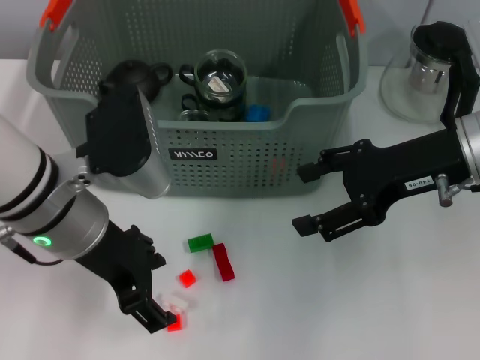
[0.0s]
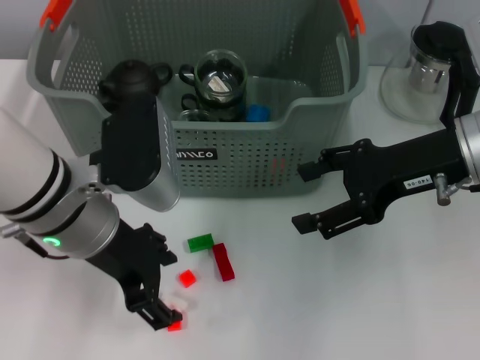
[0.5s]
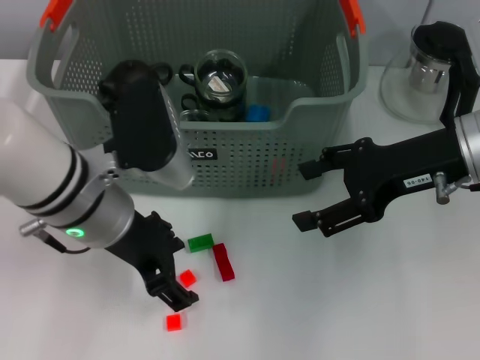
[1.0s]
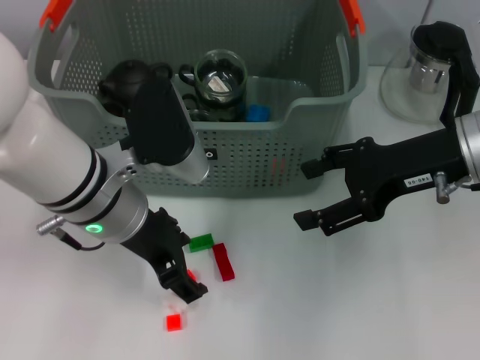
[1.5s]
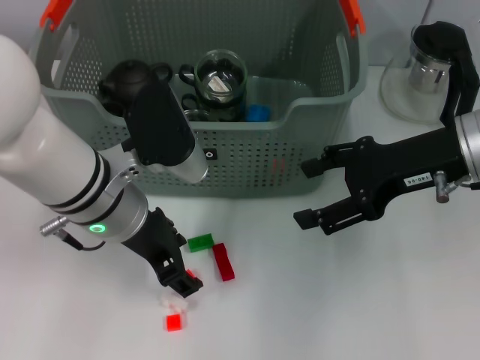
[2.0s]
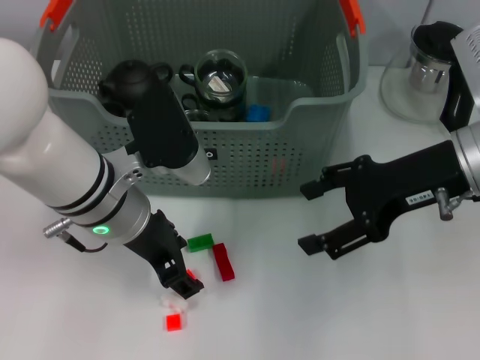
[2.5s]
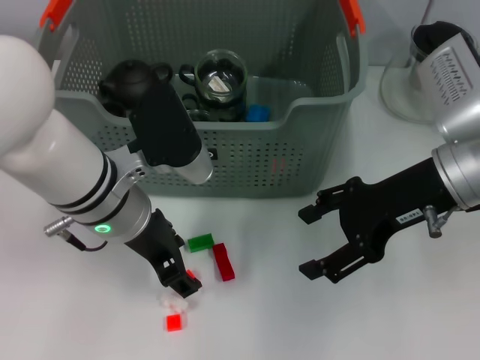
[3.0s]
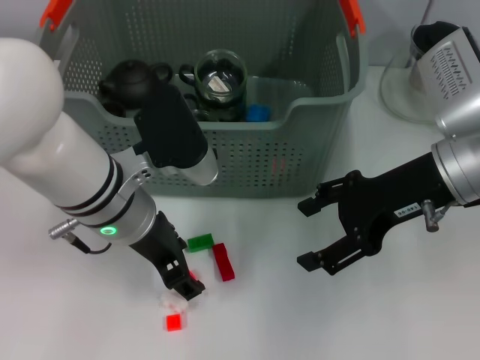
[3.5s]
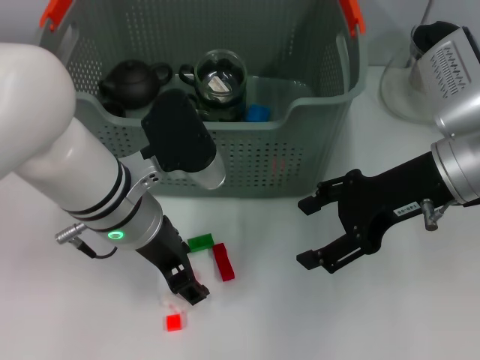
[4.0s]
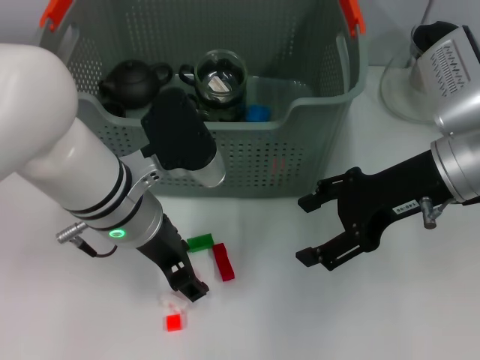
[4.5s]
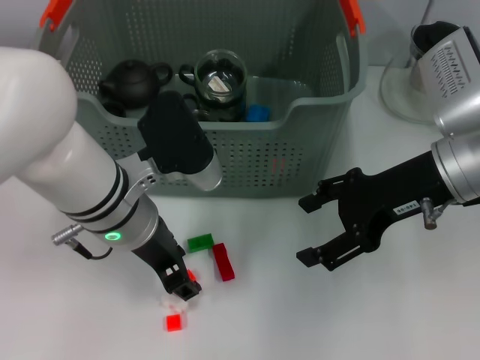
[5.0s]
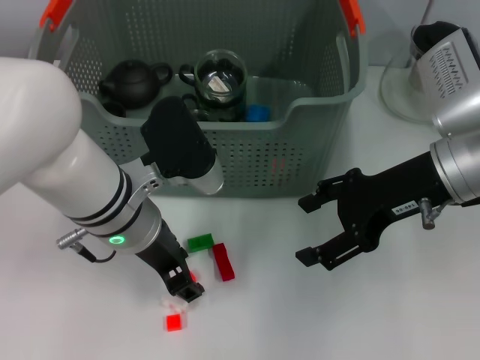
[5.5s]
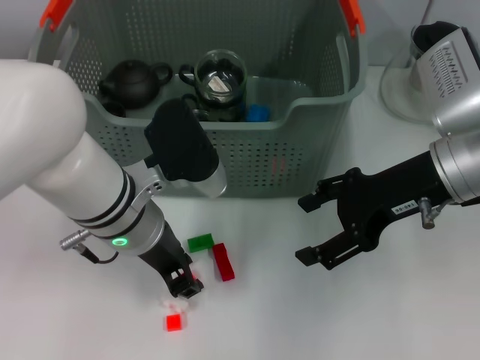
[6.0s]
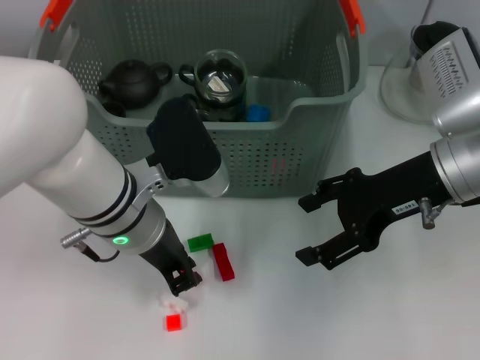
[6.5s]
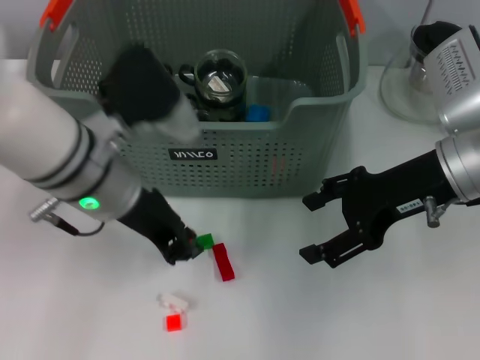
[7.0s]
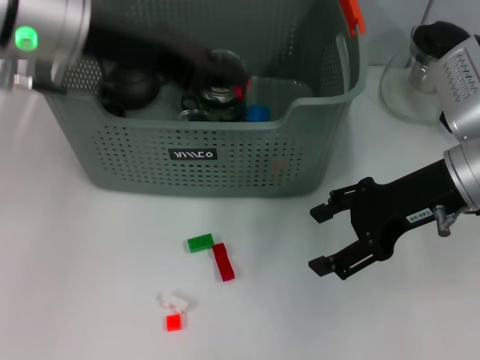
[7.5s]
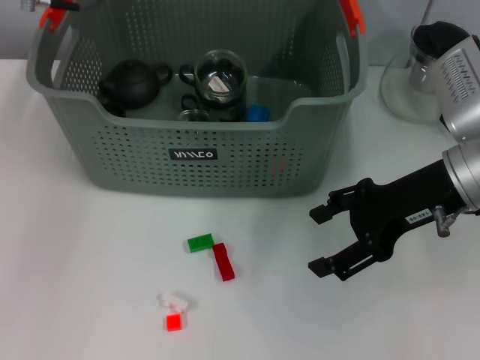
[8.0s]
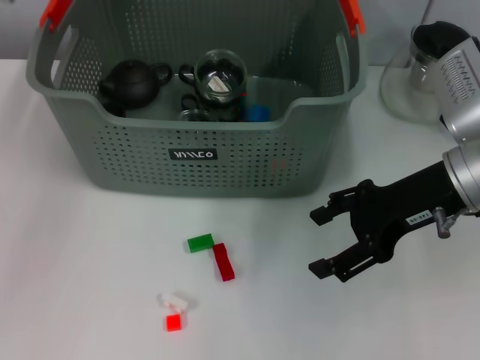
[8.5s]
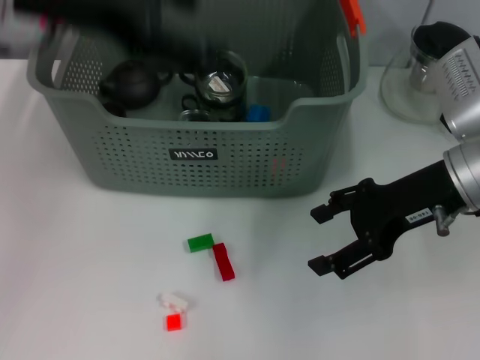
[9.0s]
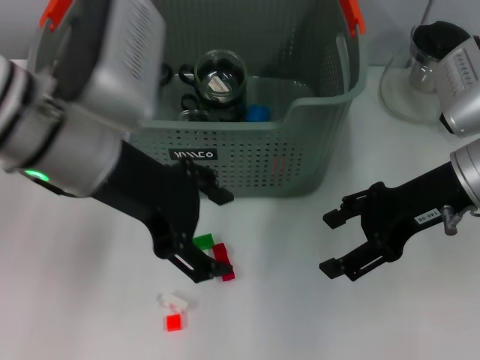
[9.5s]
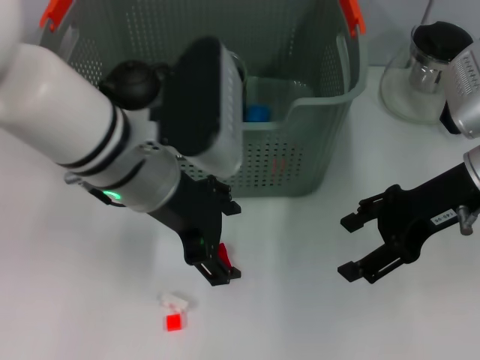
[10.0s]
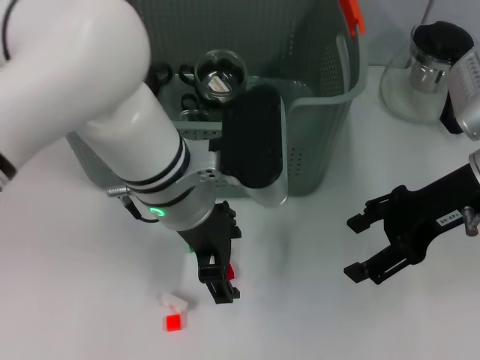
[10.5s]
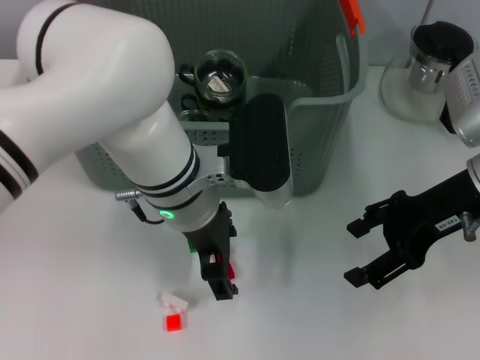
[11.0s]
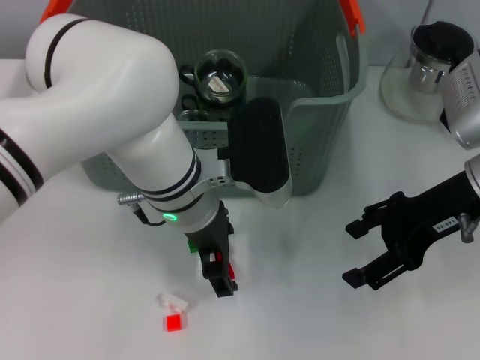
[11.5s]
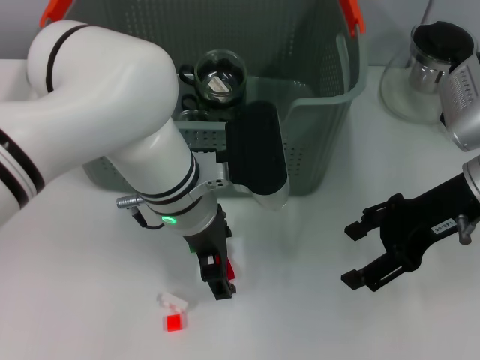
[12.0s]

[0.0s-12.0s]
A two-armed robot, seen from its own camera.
Task of the whole recording: pick up the teacup on the table and place it into the storage bin, pick up the block on the table and place it into the storage bin.
Step, 0.0s to 6.5s: Grasp the orange block with left gripper.
Step, 7.0s to 8.5s: Place the orange block in the storage box with left gripper.
0.0s to 4.0s: The grippers stay close to where they were, moving slightly.
4.0s to 6.0s: Both grippers stay put.
6.0s to 8.0s: The left gripper goes roughly 20 cm upward, forward and to the left, and closes its fingers.
8.0s to 10.0s: The left gripper moves backward, downward and to the right, about 15 cm, and opens.
10.0s to 12.0s: The left gripper heads downward, covering some 5 cm.

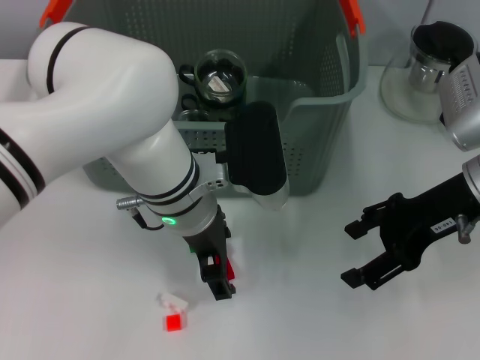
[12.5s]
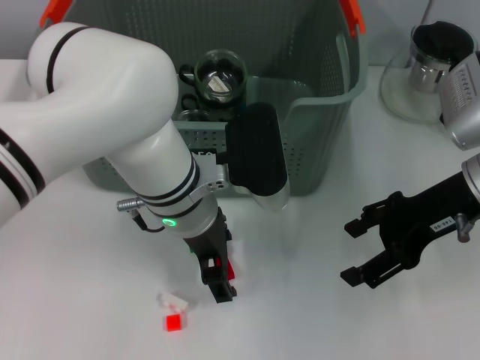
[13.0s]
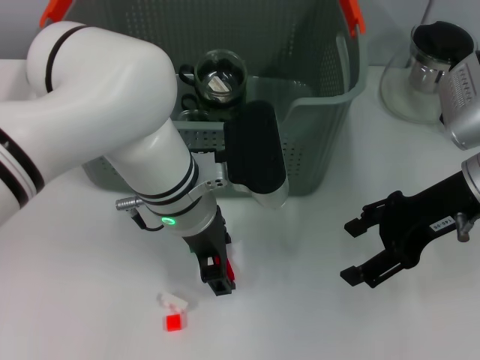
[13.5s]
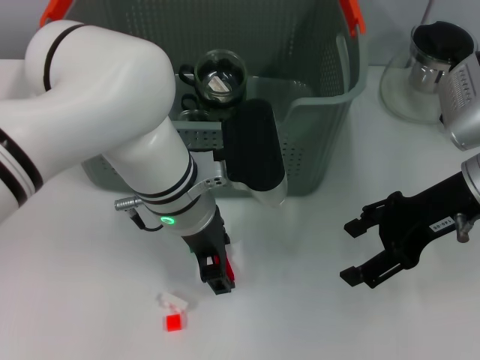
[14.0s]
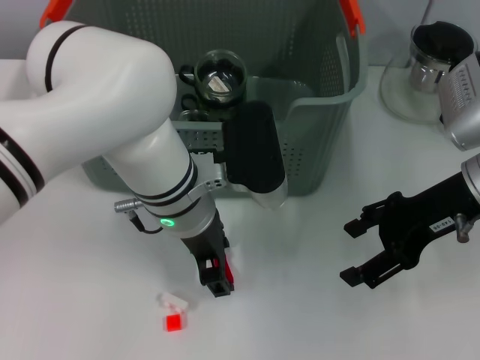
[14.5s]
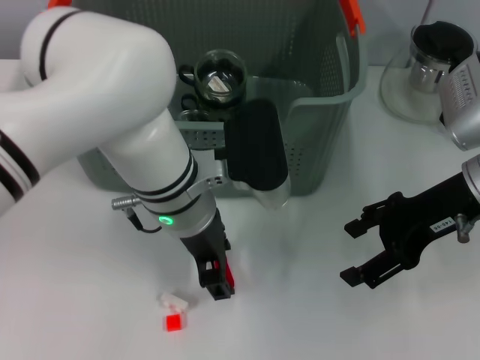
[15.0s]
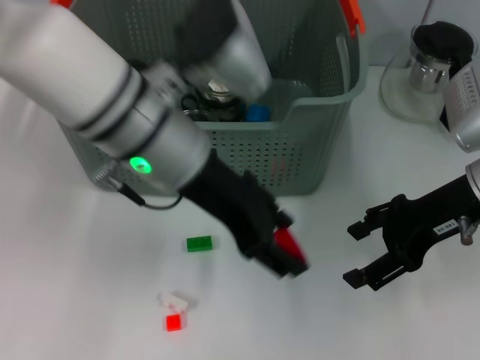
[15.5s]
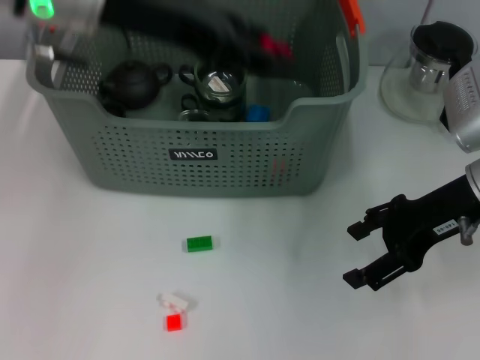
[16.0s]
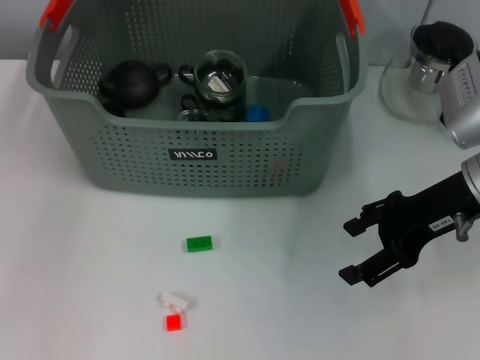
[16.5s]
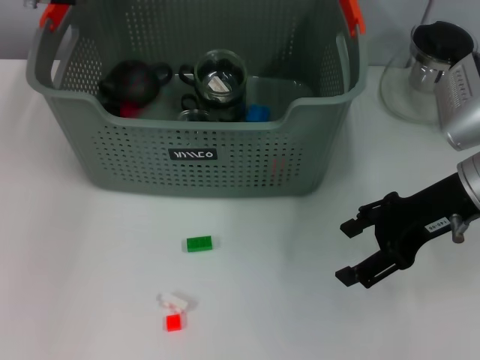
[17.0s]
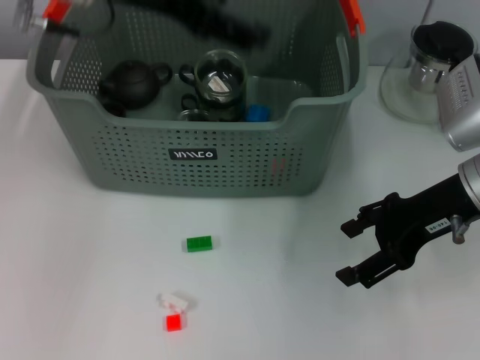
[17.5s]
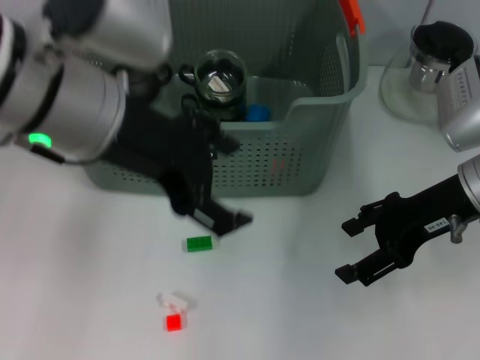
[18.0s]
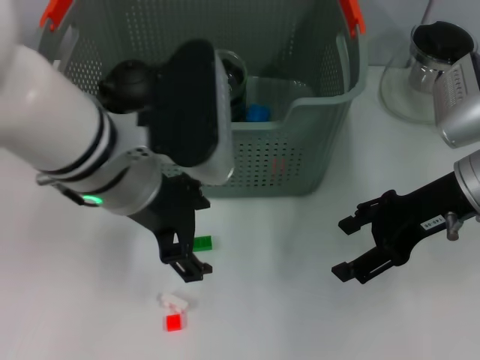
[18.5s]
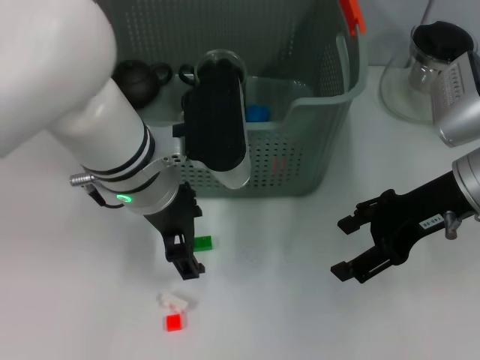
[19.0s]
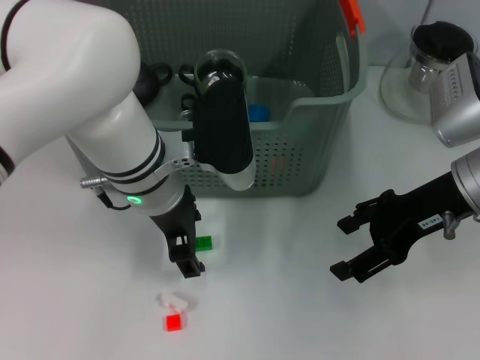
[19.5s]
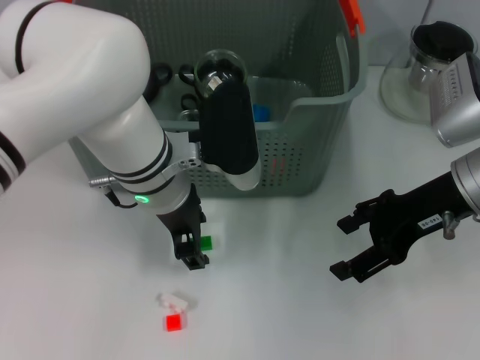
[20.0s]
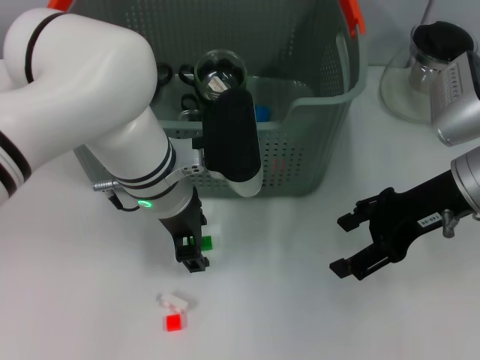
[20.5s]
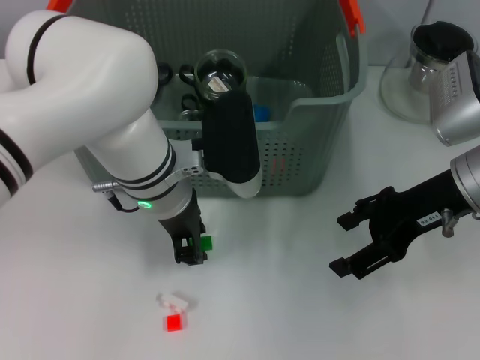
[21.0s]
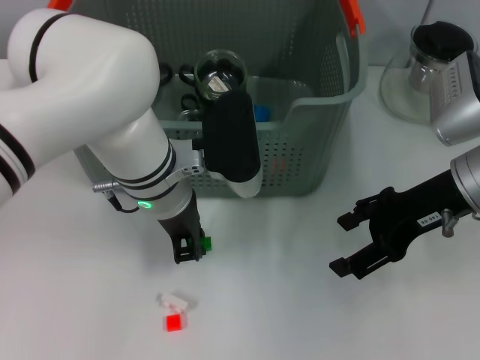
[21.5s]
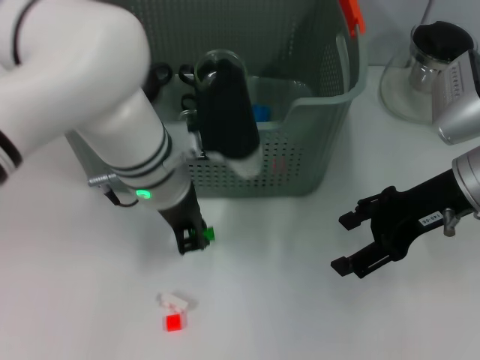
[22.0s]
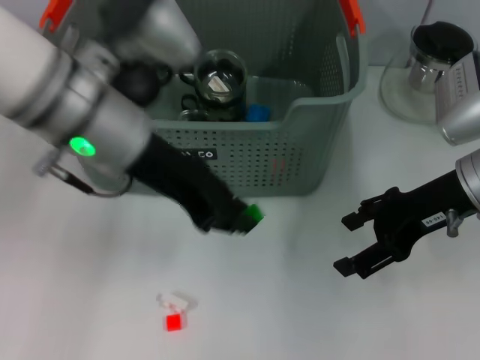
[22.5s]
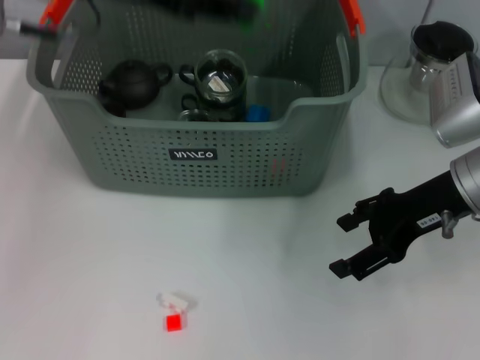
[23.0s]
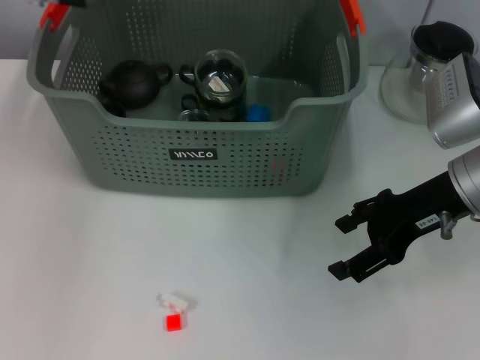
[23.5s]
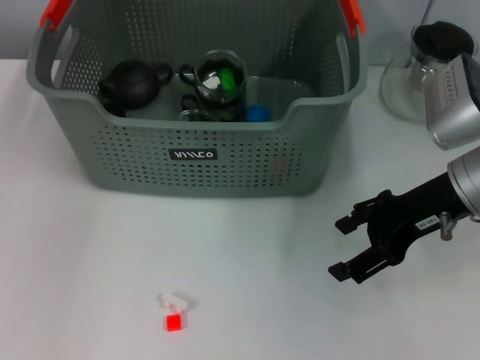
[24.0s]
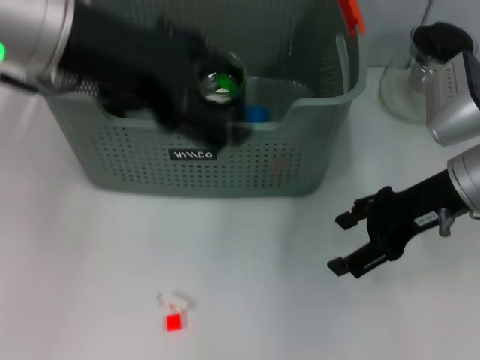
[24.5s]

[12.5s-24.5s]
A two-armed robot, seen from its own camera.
Task of the whole recording: pick up the teacup on the table and place it into the storage bin, pick up the block on the table and place it into the storage bin.
Step, 12.5s to 14.5s: Grasp the red block with left gripper.
Step, 15.0s to 17.0s: Place the red block in the storage box with left gripper.
Step, 17.5s to 21.5s: Grasp the green block with left gripper.
Step, 22.0s to 23.5s: Place the green block in the storage box with left gripper.
12.5s to 14.5s: Both grippers stay about where they are.
14.5s to 16.5s: The left gripper moves upward, to the left and forward, some 25 cm.
16.5s to 18.5s: The left gripper heads backward, to the right and downward, covering roughly 20 cm.
18.5s to 20.5s: The left gripper moves downward, some 5 cm.
20.5s to 22.5s: The left gripper heads upward, covering about 10 cm, and closes its fingers.
22.5s to 24.5s: The left gripper moves upward, roughly 5 cm, reaches roughly 10 cm forward, then returns, and opens its fingers.

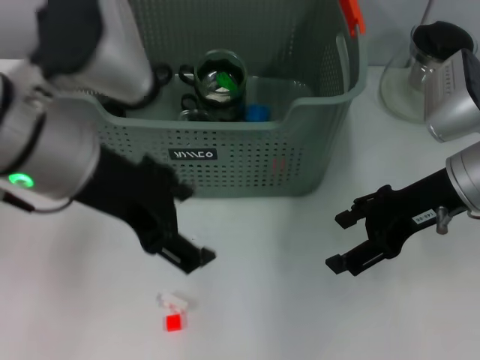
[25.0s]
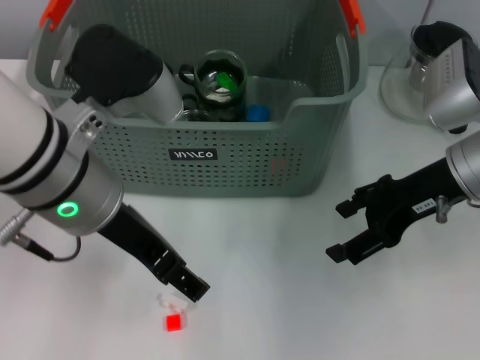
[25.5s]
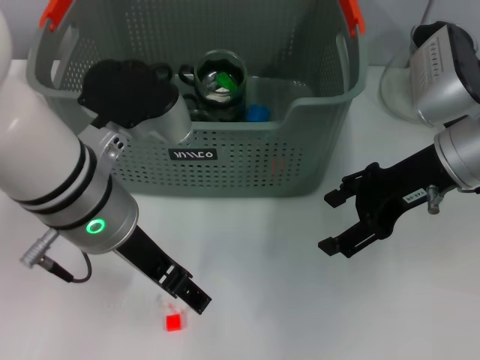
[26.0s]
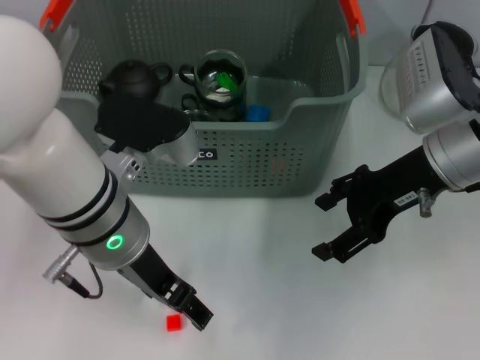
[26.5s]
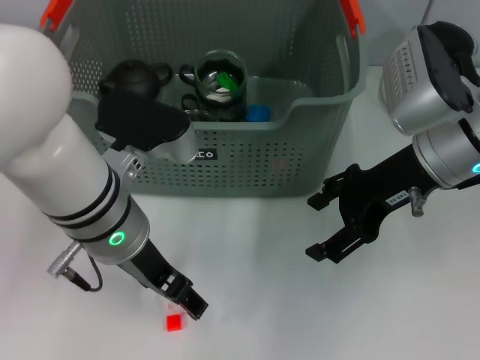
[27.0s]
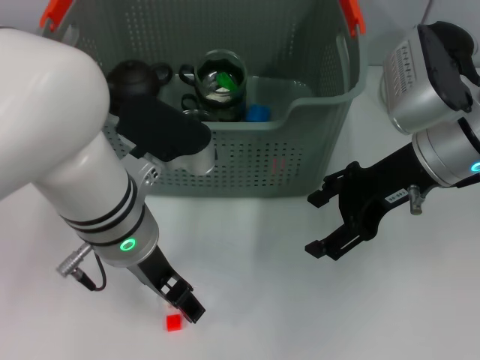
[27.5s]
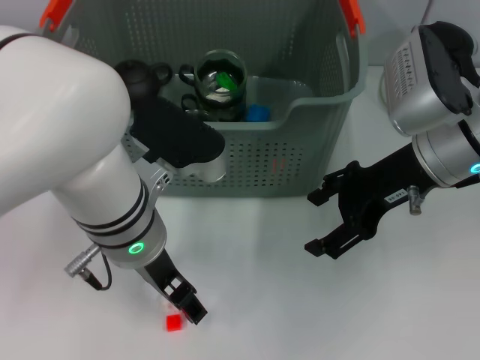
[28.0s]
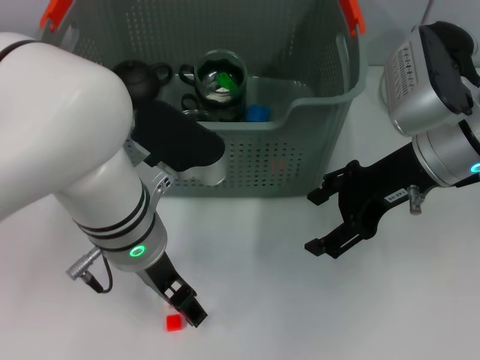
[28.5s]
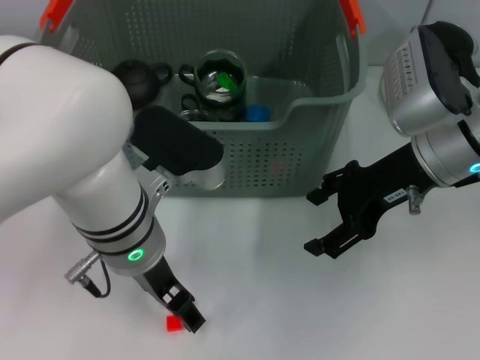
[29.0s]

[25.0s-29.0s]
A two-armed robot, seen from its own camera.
Task of the whole recording: pick up the teacup on the table and place it into the storage bin, pick up the block on the table and place it into the storage bin.
25.0s to 27.0s: The left gripper goes about 10 cm downward.
27.0s to 29.0s: There are only small adjustments of the grippers.
